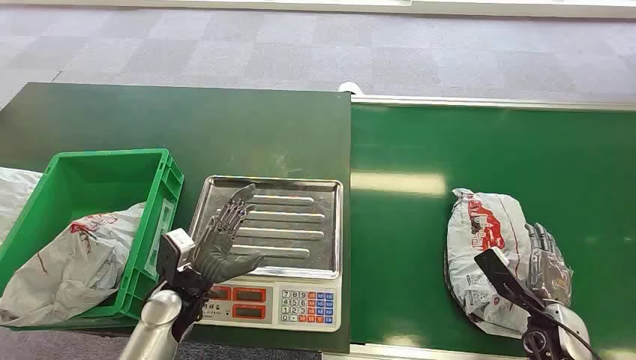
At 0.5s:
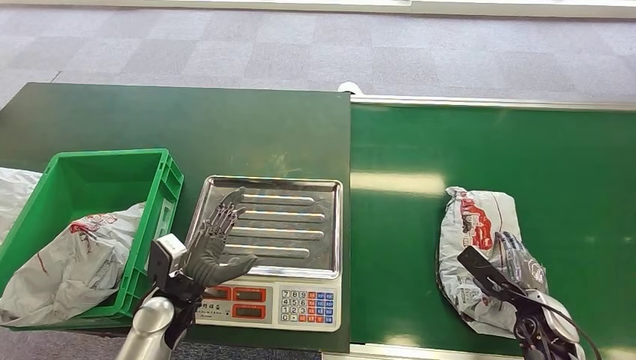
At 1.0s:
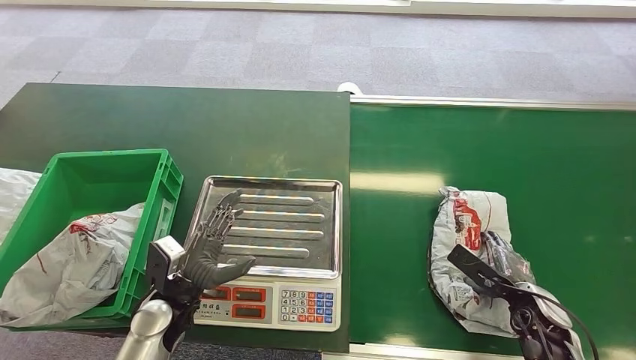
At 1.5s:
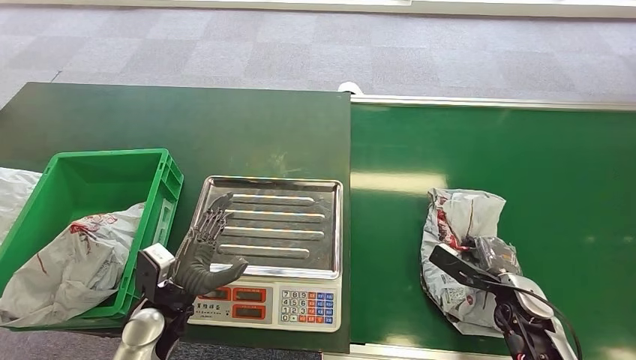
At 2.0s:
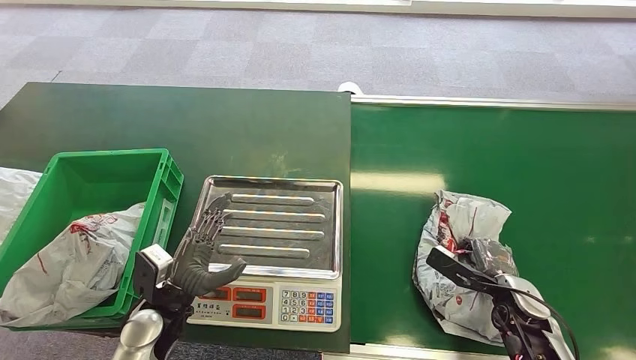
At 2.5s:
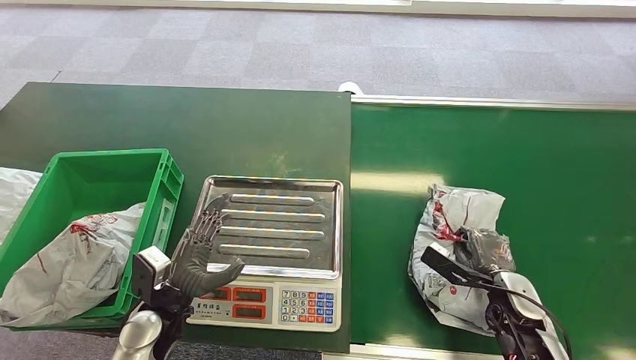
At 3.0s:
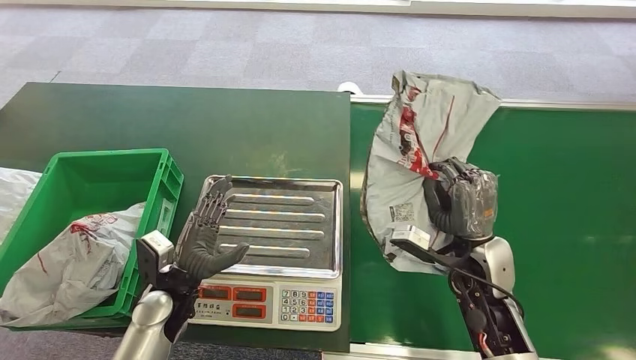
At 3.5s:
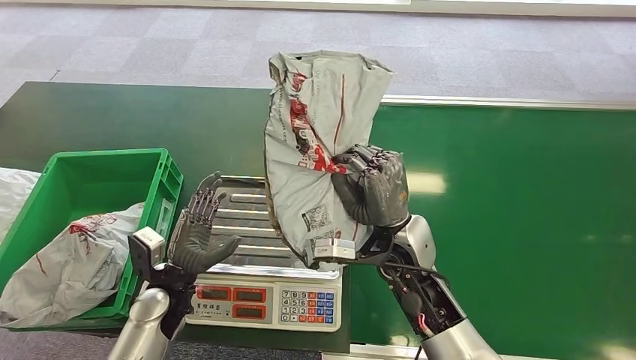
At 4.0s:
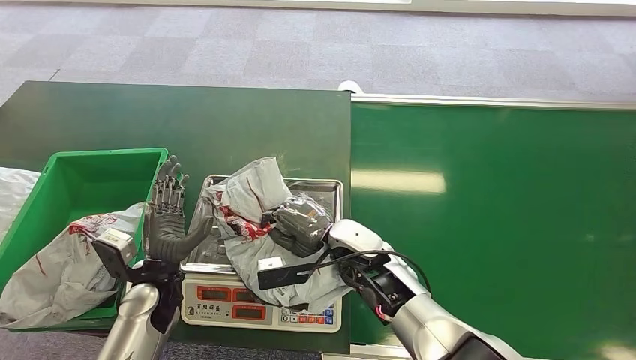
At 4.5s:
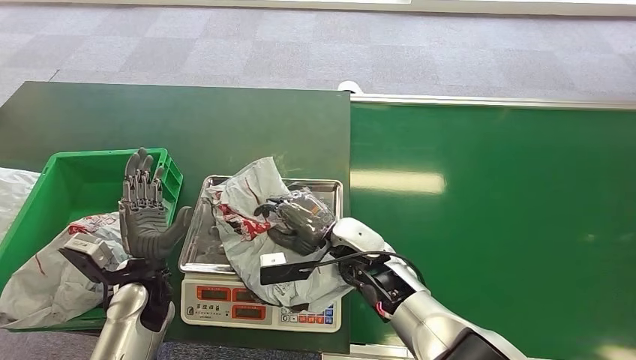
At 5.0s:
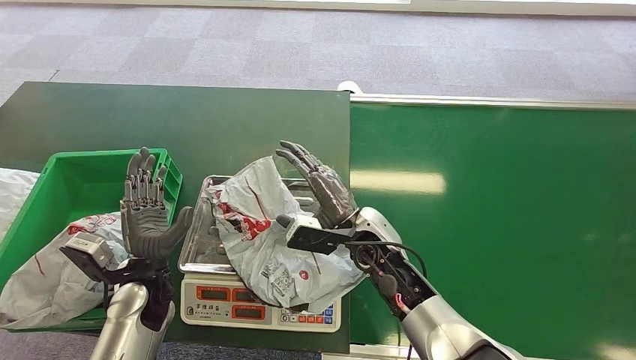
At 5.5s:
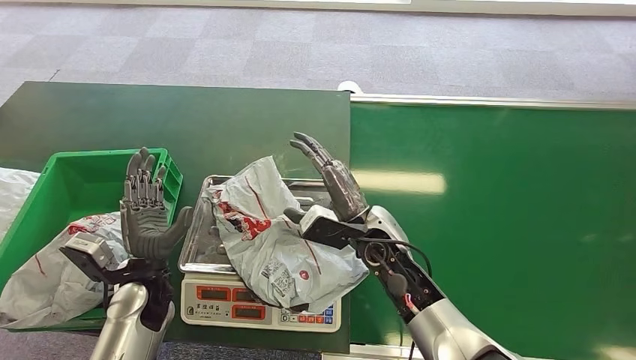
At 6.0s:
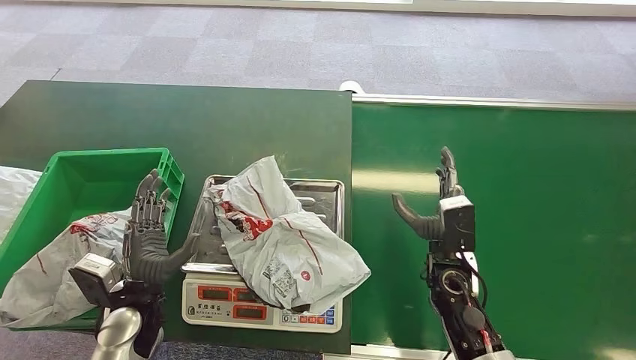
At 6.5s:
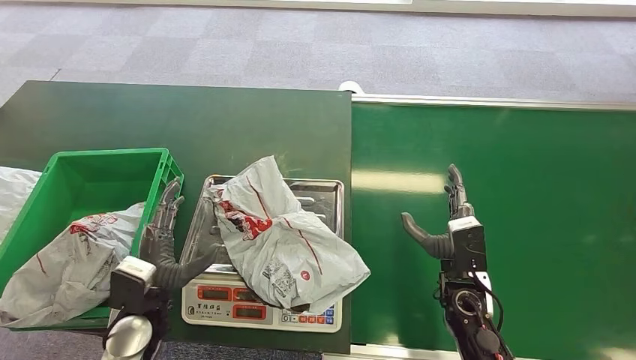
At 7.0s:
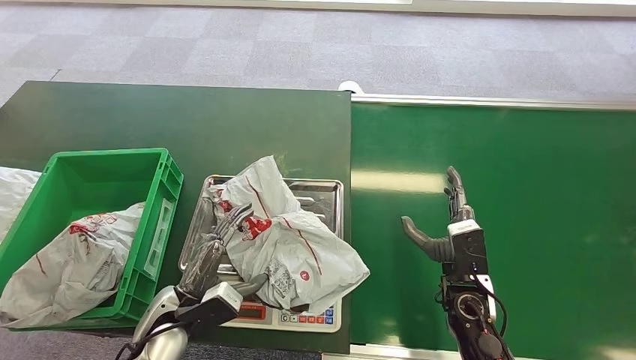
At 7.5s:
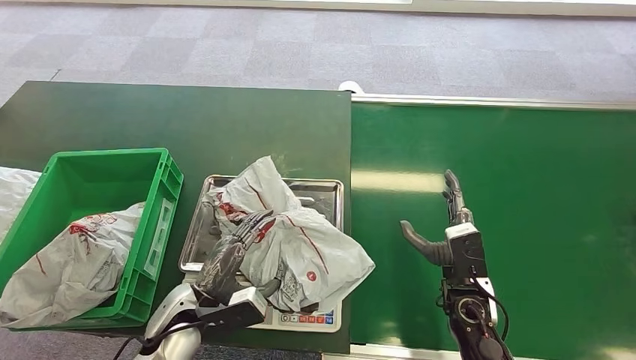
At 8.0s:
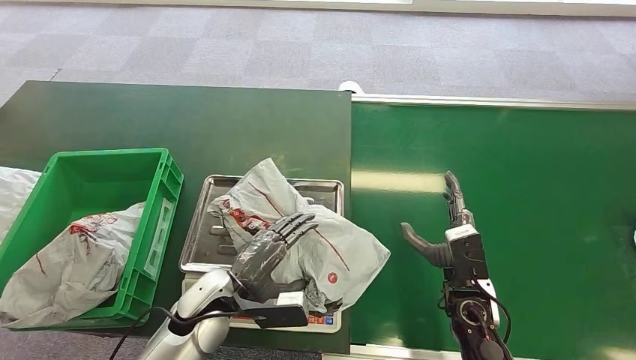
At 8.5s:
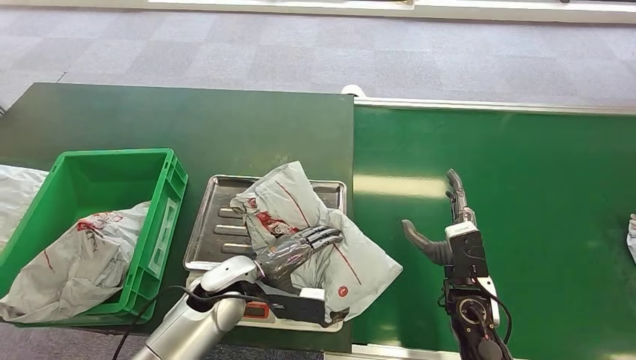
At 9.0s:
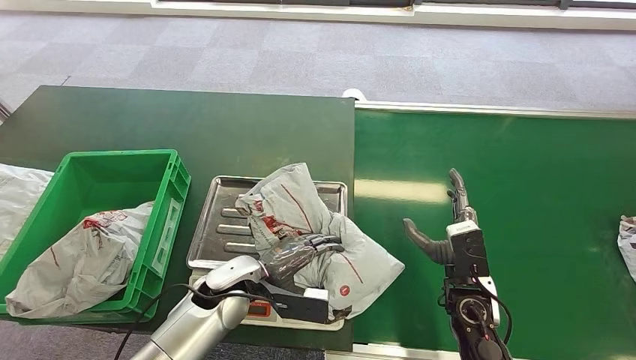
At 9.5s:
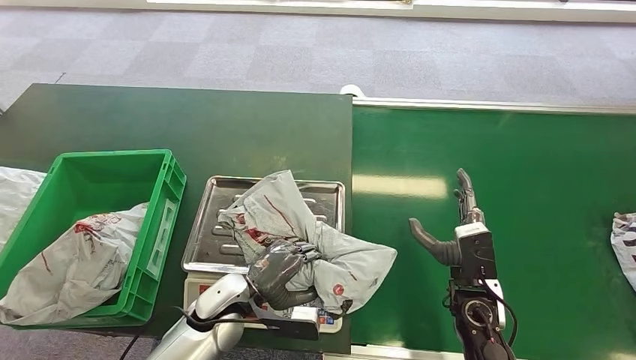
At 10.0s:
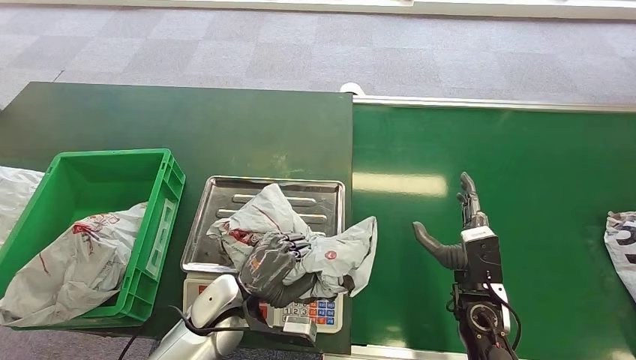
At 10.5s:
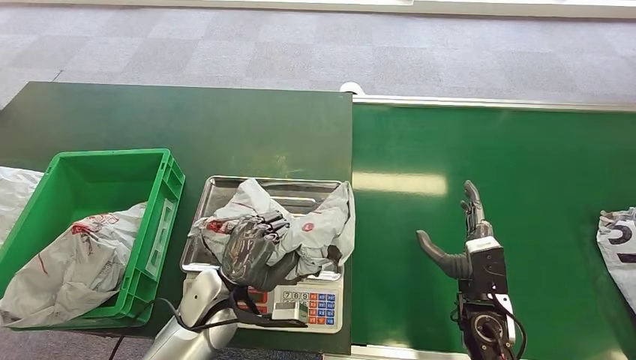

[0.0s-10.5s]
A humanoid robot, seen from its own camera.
Step, 0.0s to 2.5s: Pick up the package from the conveyor belt.
Step, 3.0s to 4.5s: Place the package onto the inbound machine.
4.0s to 6.5s: The right hand moves to the right, some 15 cm.

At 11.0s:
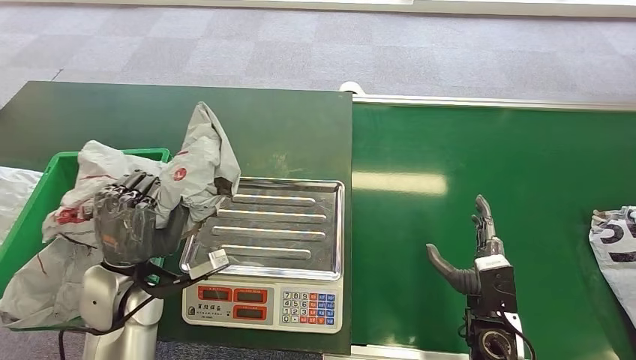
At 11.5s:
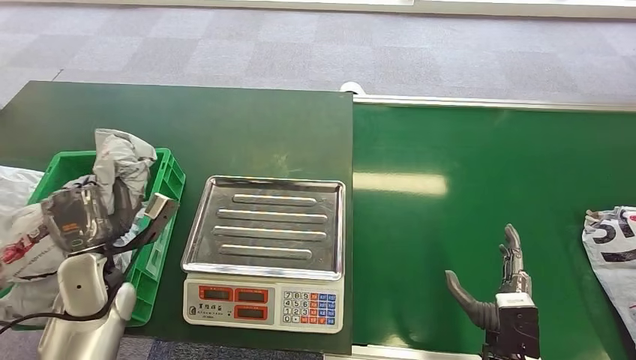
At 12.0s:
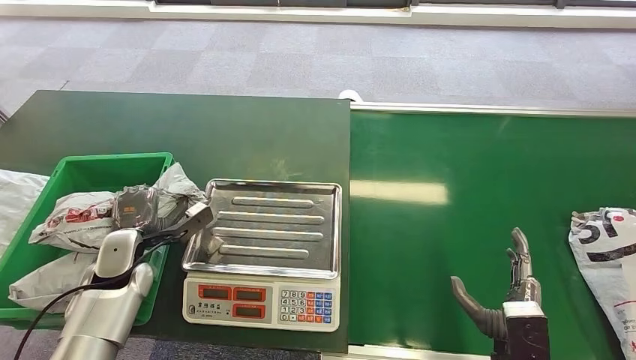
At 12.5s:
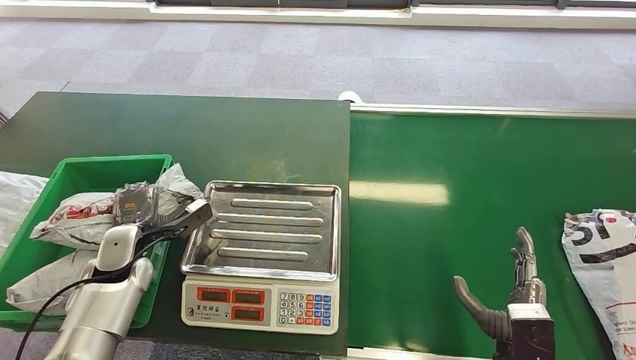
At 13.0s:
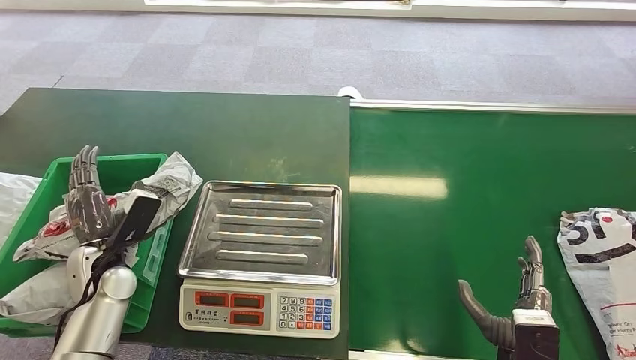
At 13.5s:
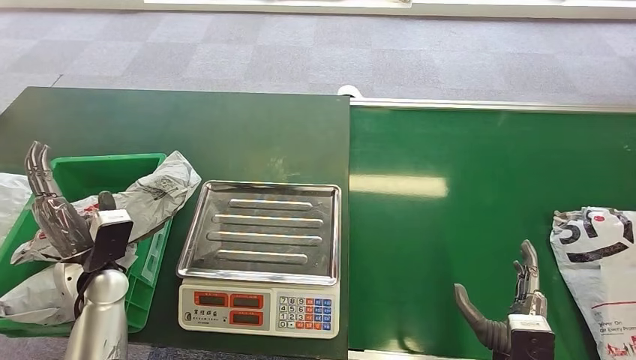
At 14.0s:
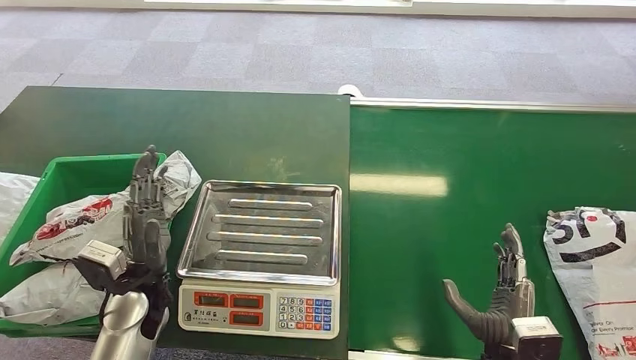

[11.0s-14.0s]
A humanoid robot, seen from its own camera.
Step, 11.5s to 14.0s: Place the package into the parcel locker.

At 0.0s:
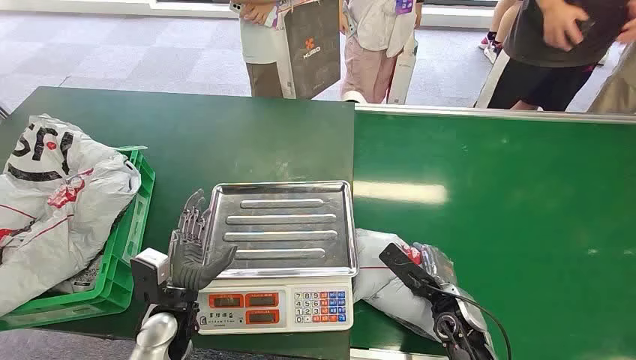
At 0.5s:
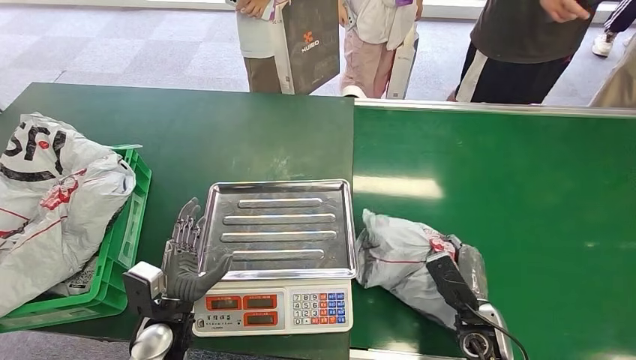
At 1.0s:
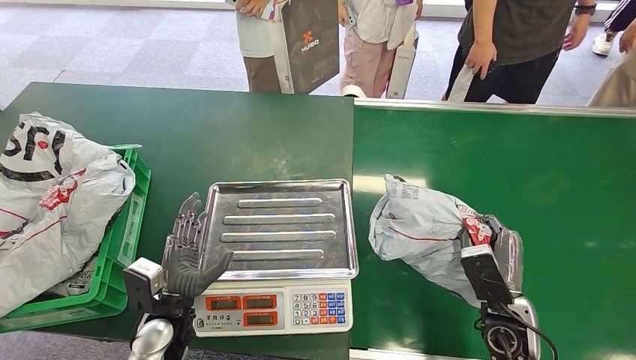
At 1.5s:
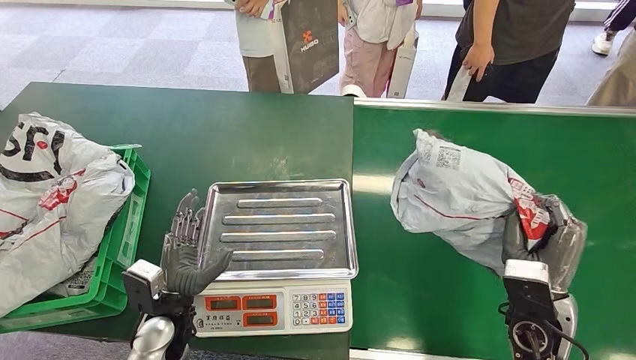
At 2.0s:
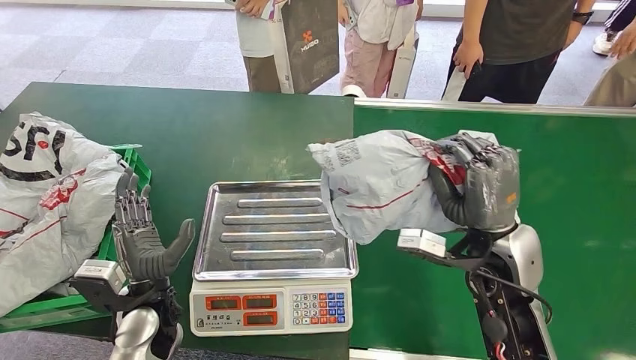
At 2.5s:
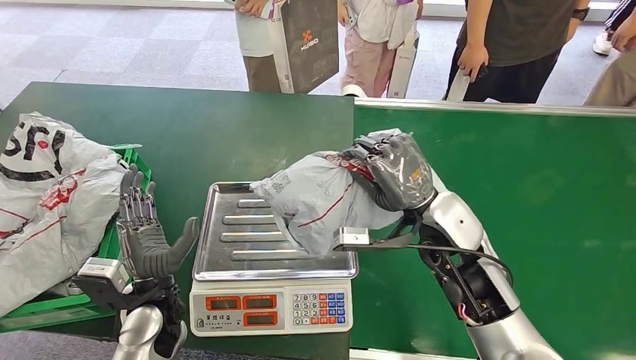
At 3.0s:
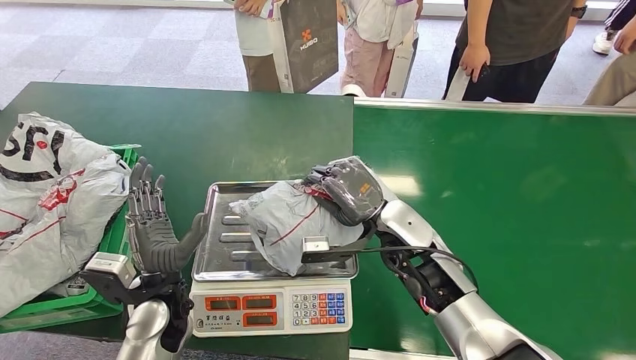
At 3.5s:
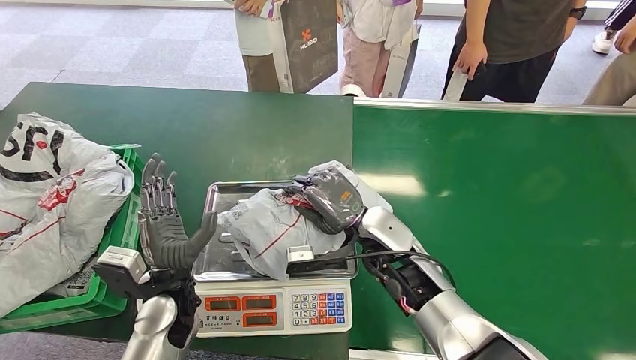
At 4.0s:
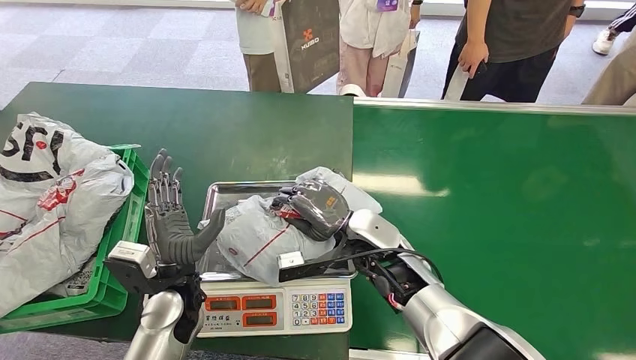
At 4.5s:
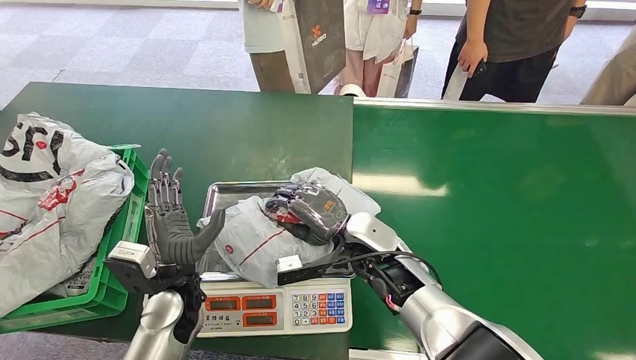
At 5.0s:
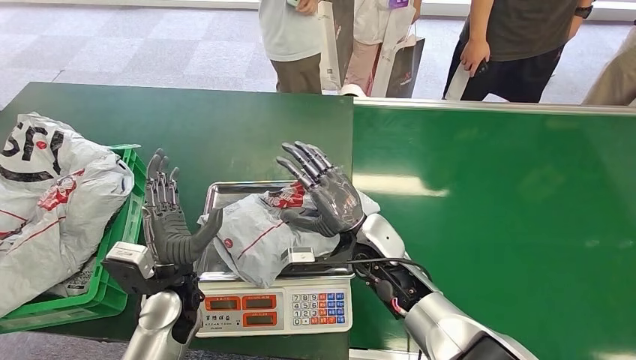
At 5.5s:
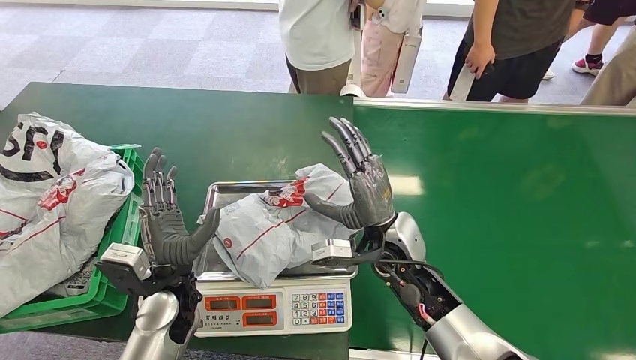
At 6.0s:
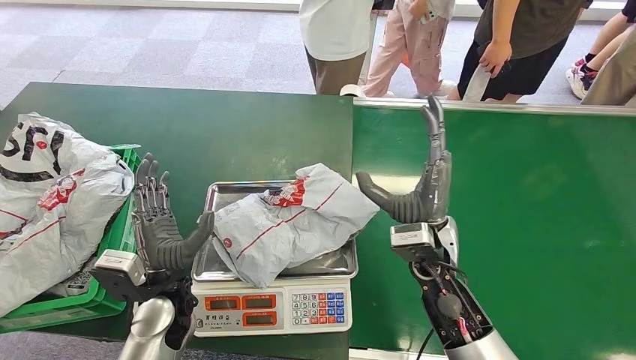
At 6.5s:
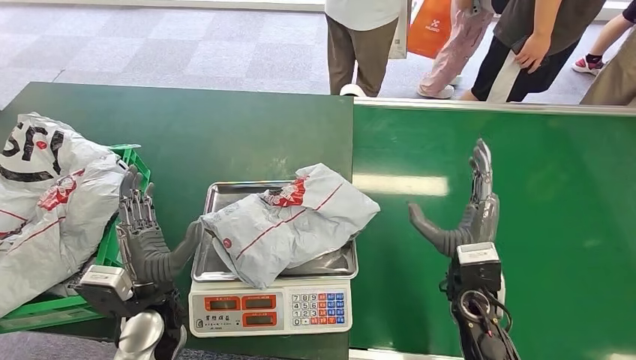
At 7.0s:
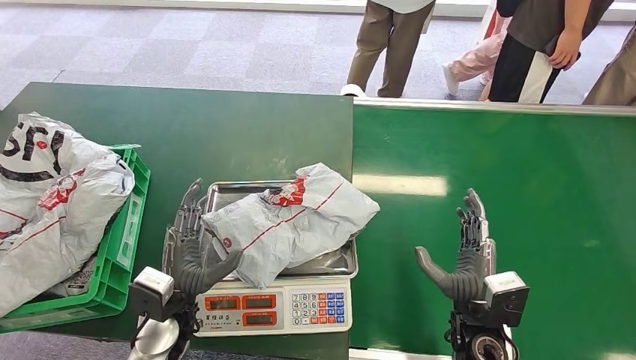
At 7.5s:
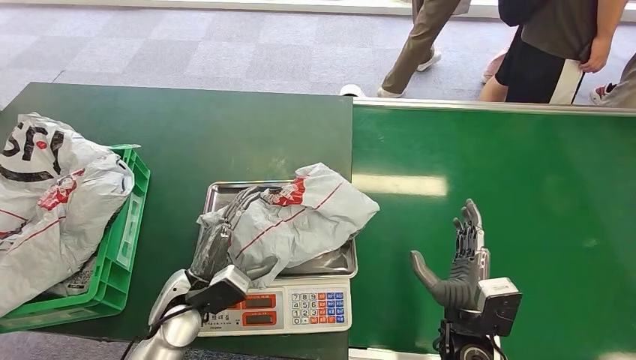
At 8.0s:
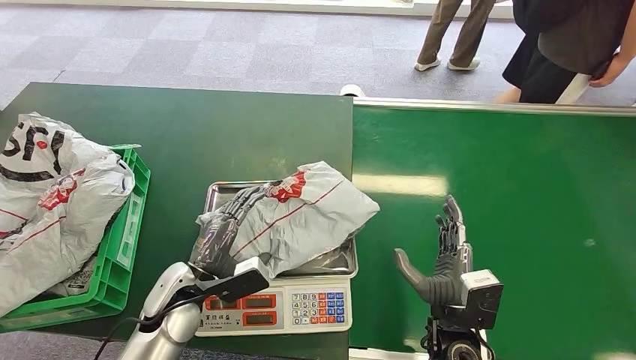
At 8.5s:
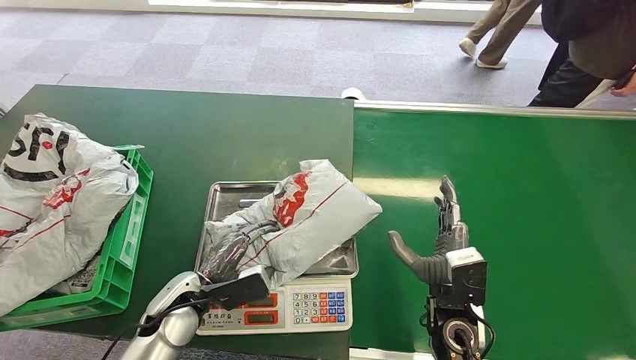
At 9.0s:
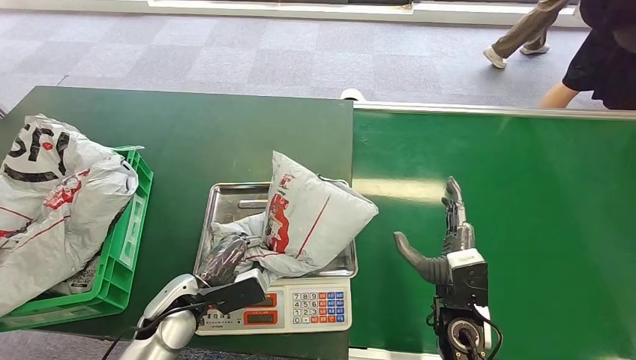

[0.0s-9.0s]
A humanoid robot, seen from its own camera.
Step, 0.0s to 1.5s: Pick up the package from the conveyor belt.
Step, 2.0s to 4.5s: Place the package onto the inbound machine.
